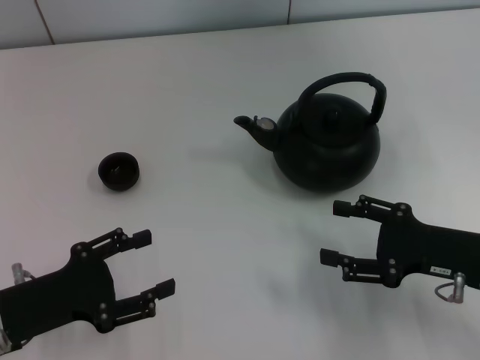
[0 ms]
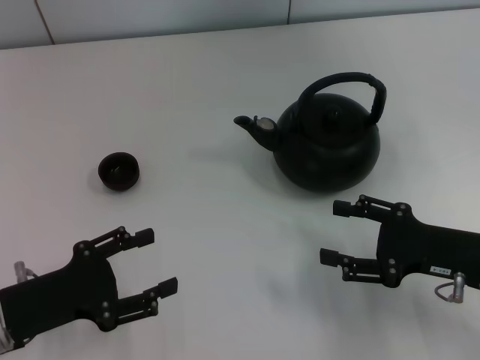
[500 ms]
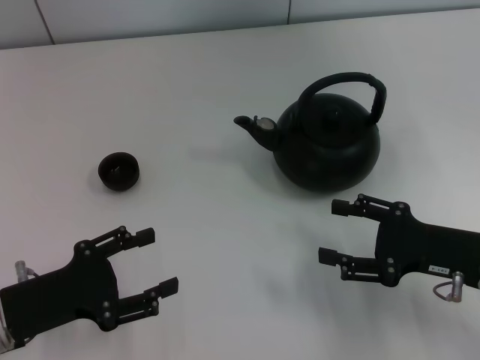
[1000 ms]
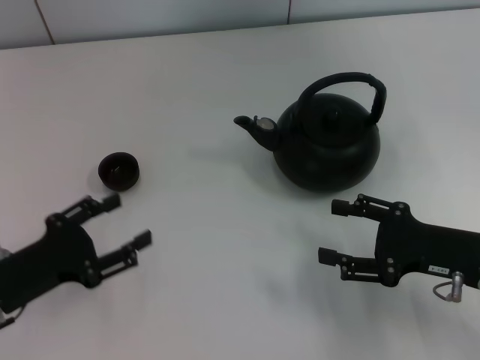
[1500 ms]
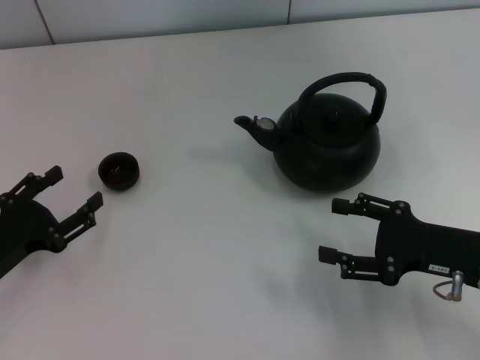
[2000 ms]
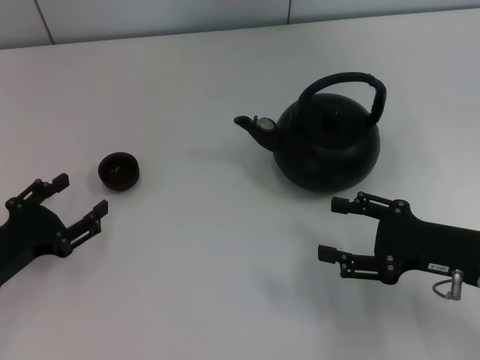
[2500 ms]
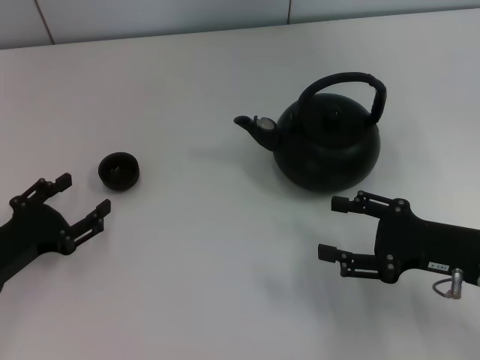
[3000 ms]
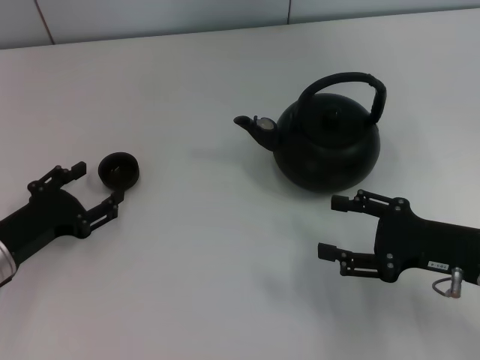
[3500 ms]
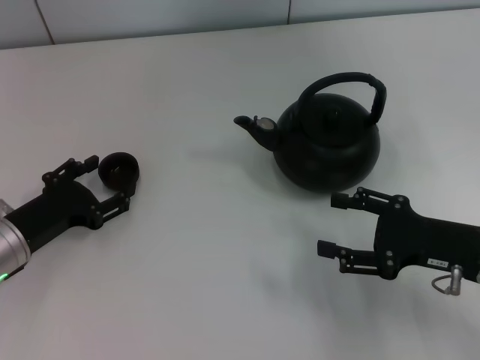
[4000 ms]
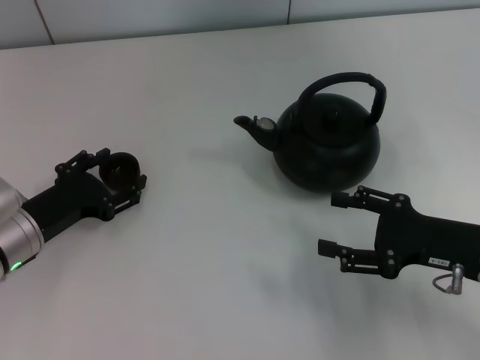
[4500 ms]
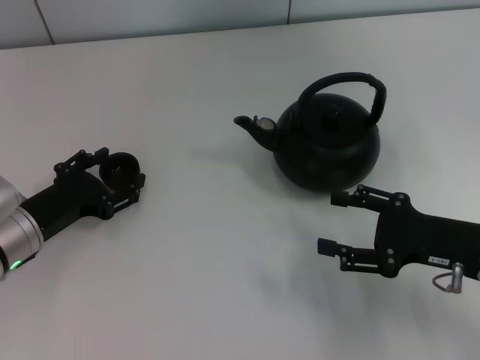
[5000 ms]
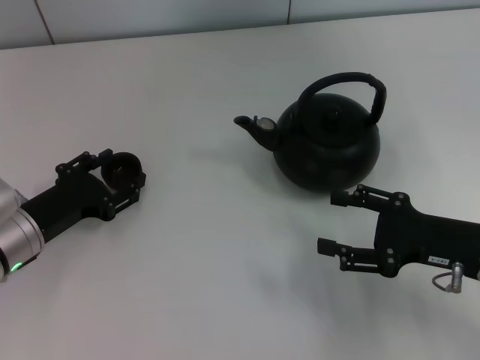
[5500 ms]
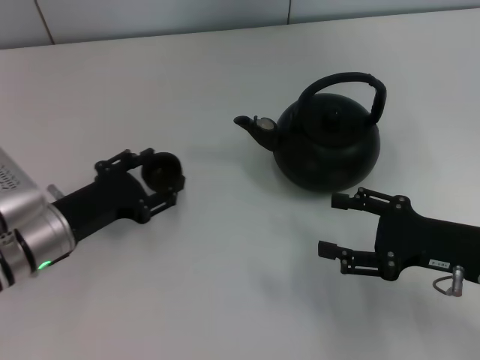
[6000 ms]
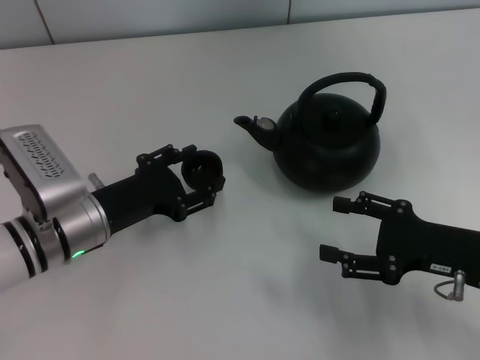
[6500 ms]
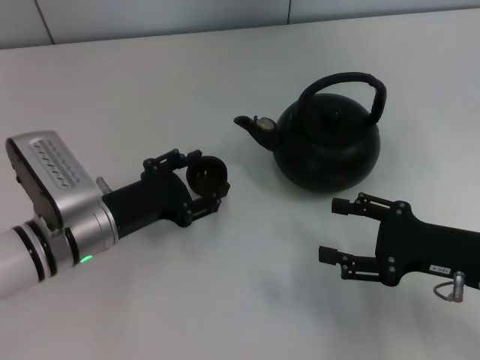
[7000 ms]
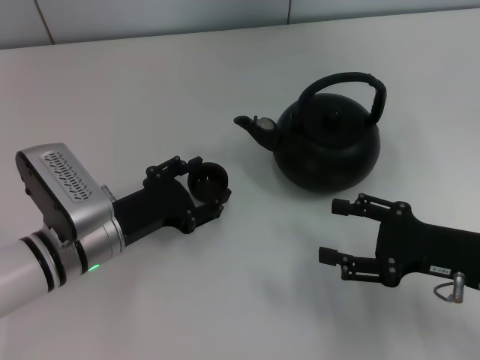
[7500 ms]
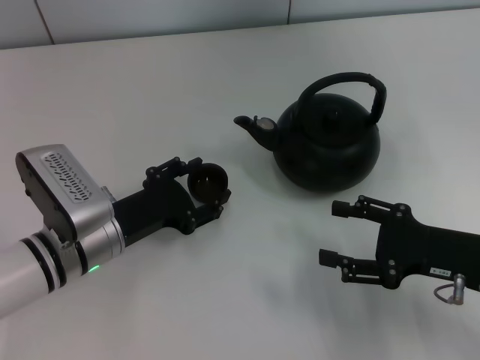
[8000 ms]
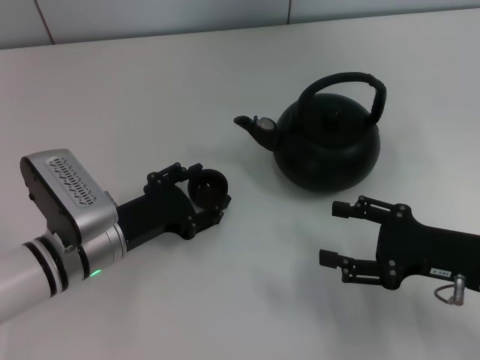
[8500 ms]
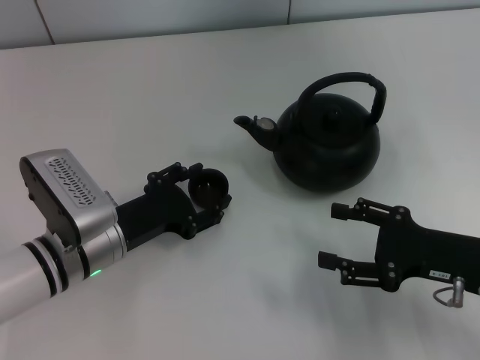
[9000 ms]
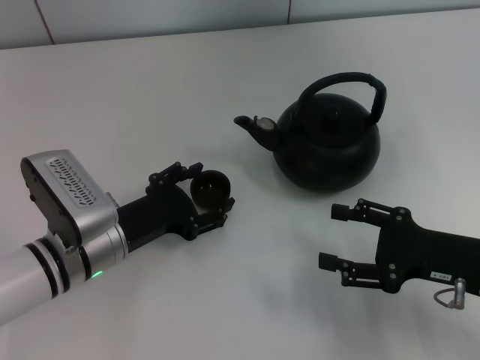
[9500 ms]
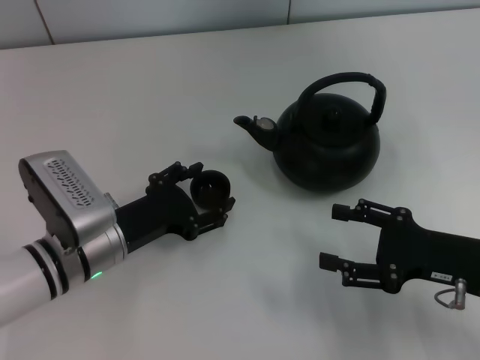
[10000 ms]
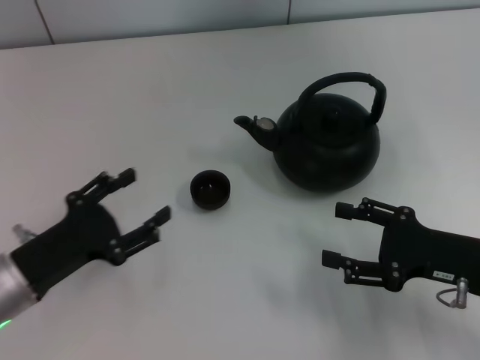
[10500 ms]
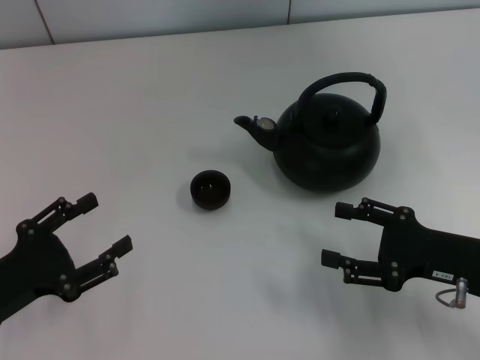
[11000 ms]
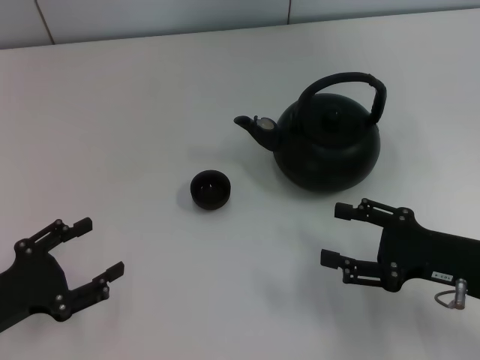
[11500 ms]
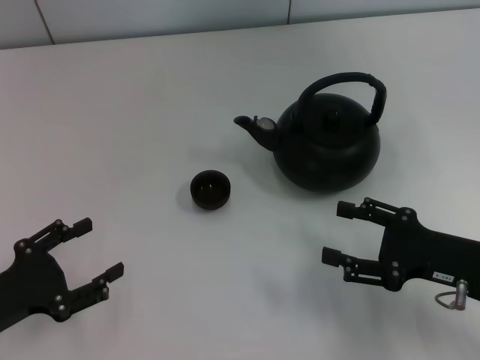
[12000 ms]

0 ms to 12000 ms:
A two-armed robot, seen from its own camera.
Task of the whole recording: Grasp the handle of the teapot with one hand and pour tea into the teacup.
Step, 0 ms to 5500 ms: Pick up the teacup with the left gripper.
Step, 6000 ms to 10000 ms: Place the teacup in the center of view with the left gripper.
2000 ms to 4000 ms: The left gripper ends up approximately 5 cm from where it was.
4000 ms to 6000 ms: There are only small adjustments of the grippers.
6000 ms to 8000 ms: There are only small adjustments of the grippers.
8000 ms to 10000 ms: Both grippers stay about where they are.
10000 ms to 12000 ms: The left gripper moves to the left and backward, approximately 15 cm.

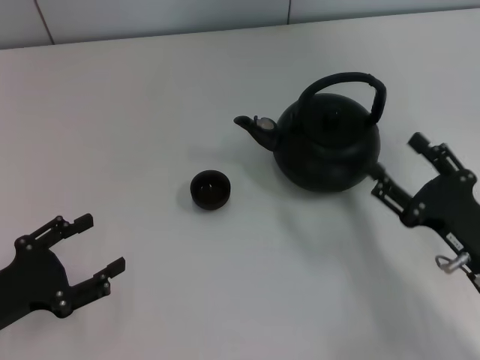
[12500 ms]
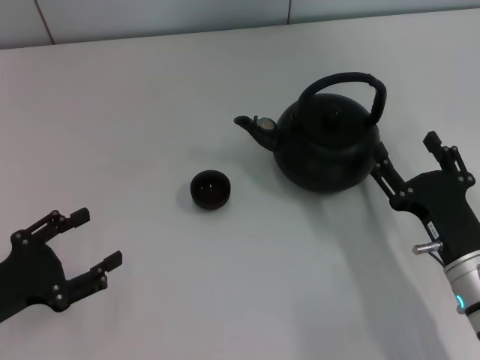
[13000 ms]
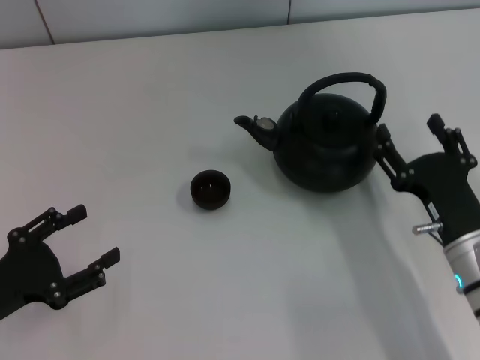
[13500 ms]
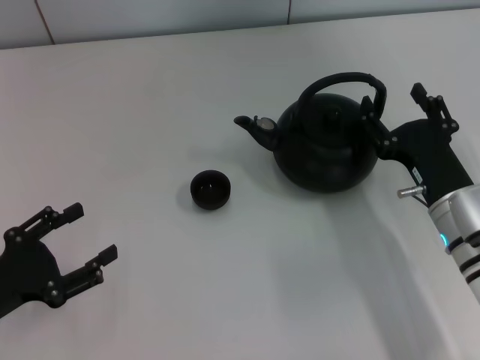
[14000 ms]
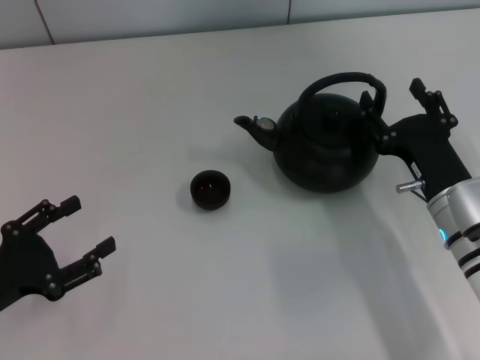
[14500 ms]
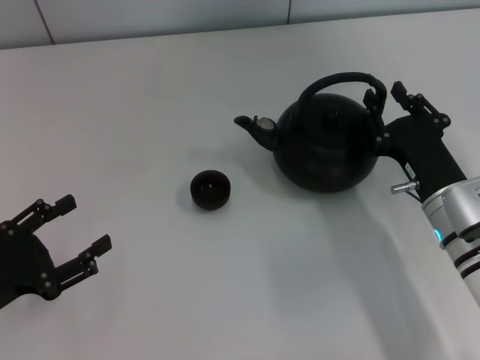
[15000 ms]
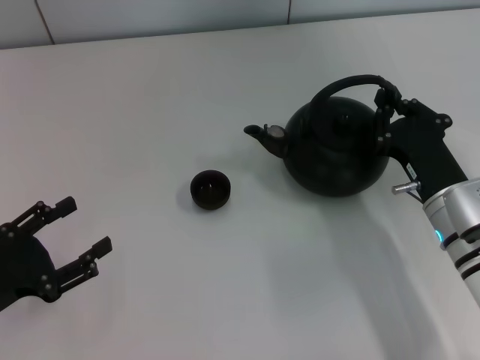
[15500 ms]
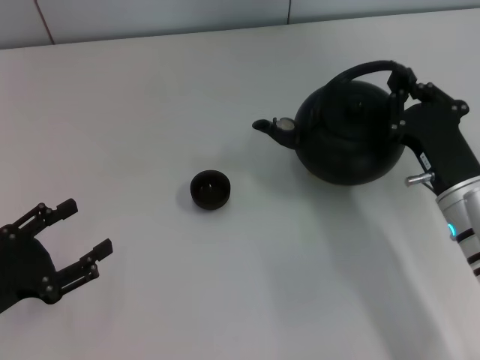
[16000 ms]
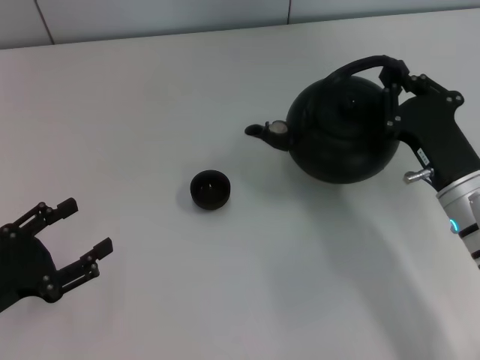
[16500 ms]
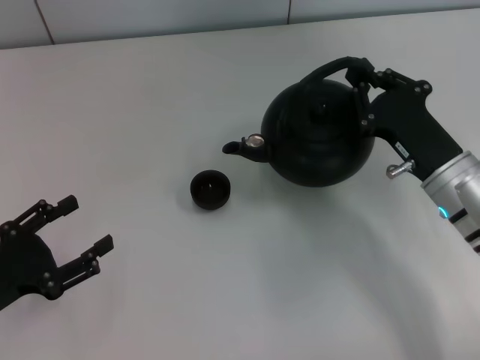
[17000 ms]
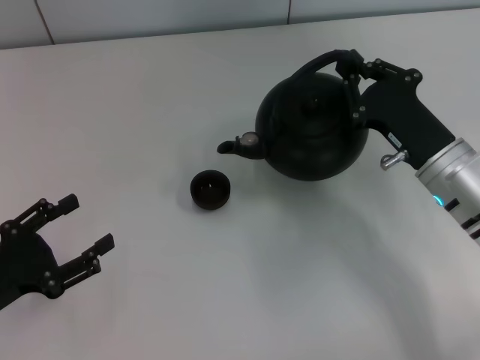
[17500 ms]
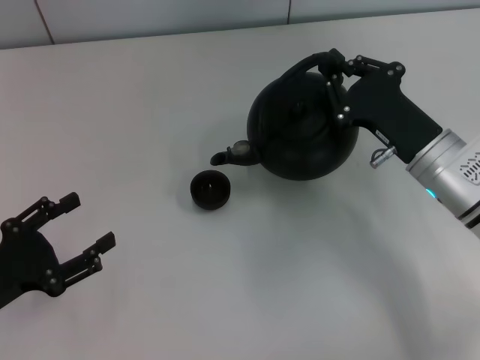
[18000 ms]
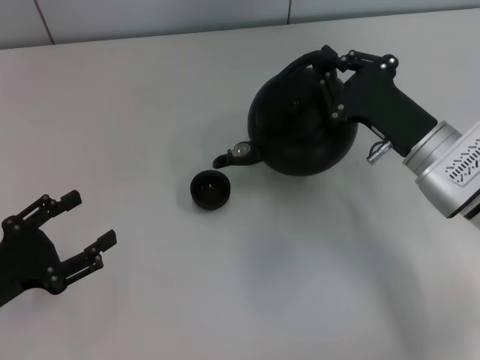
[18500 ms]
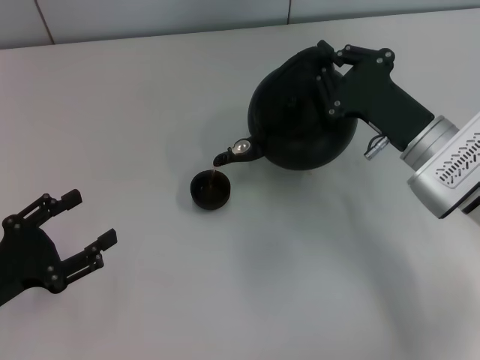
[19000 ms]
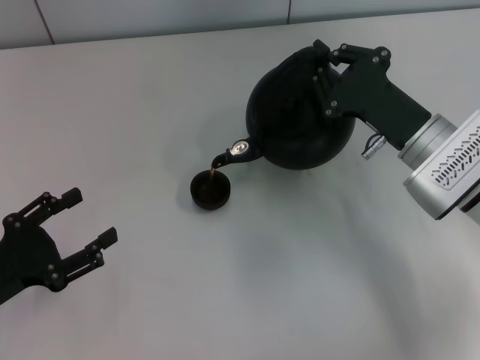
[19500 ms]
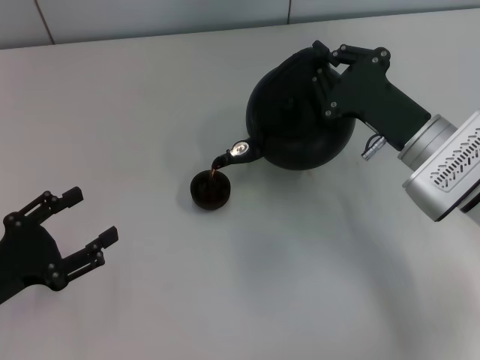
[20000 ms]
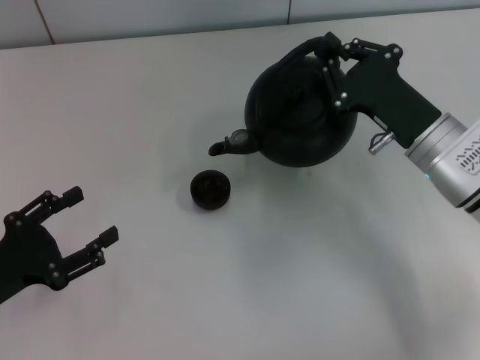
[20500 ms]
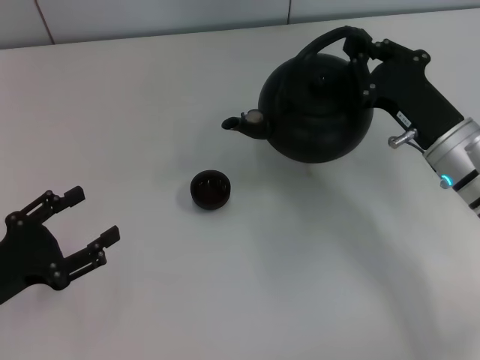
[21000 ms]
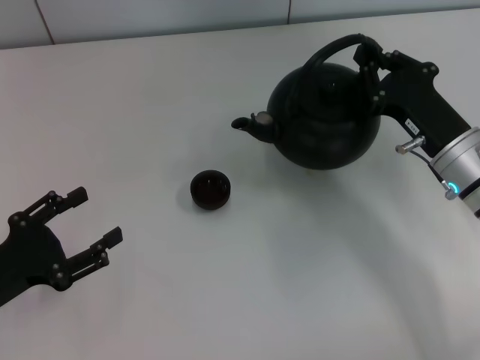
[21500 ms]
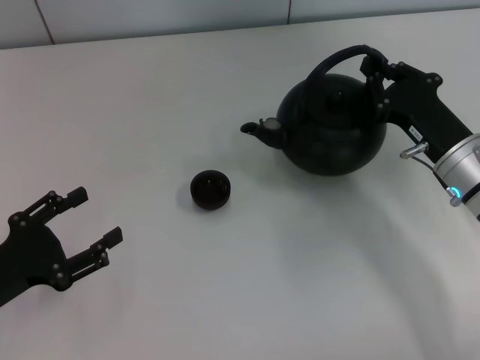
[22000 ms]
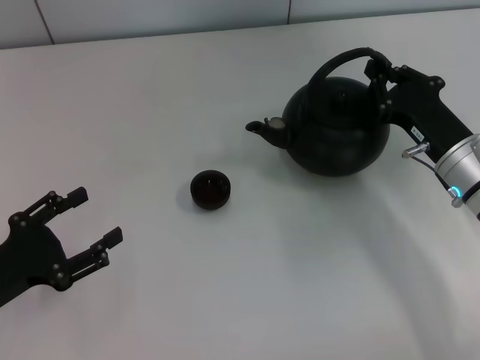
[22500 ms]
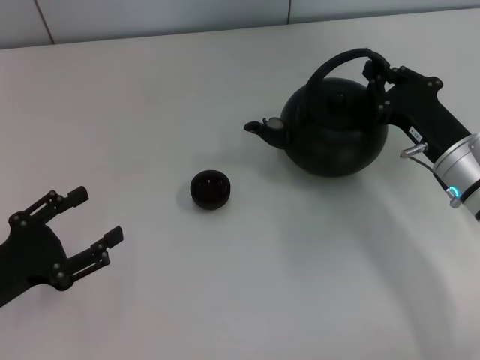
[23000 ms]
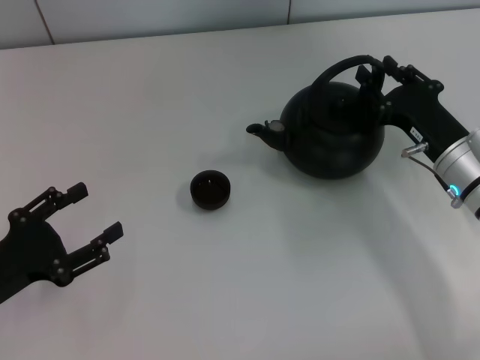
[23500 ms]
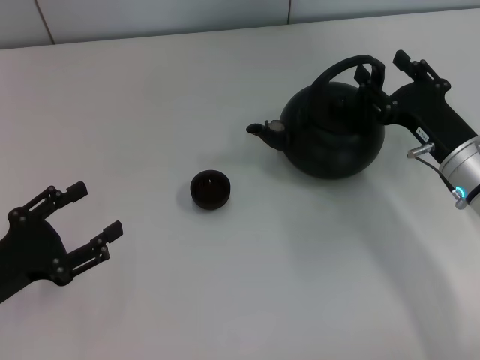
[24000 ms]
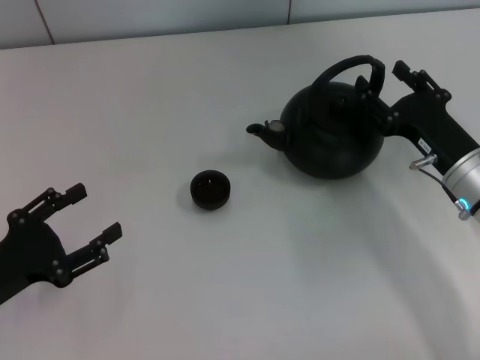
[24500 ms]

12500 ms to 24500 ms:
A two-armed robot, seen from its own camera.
Task of the whole recording: Grasp the handle of the teapot with one hand and pour tea into the teacup.
Step, 12500 ms to 16000 ms: Pick up the teapot with the right gripper.
12500 ms to 14500 ms: The right gripper goes some 5 cm forward.
14500 ms to 16500 ms: The right gripper closes up.
16500 ms to 18500 ms: The right gripper is displaced forward by approximately 5 cm.
18500 ms to 20500 ms: The grippers stay close to where they were, moving slightly.
22500 ms to 24500 ms: The right gripper opens.

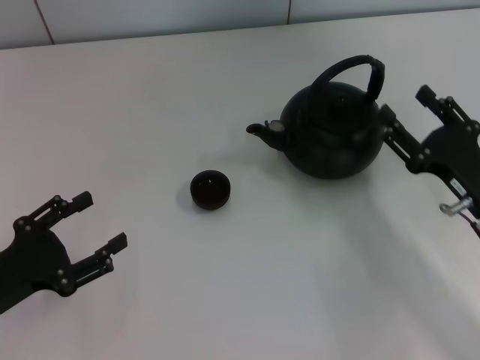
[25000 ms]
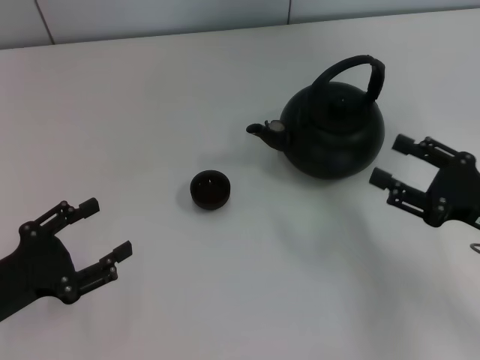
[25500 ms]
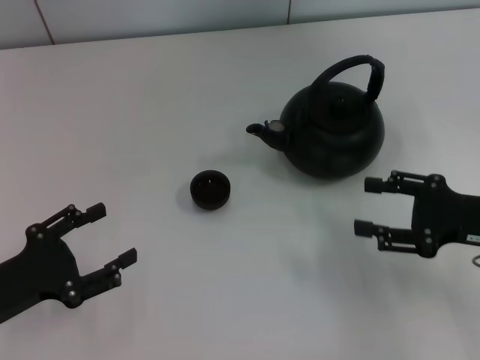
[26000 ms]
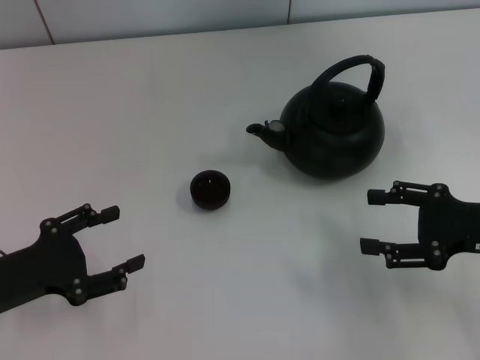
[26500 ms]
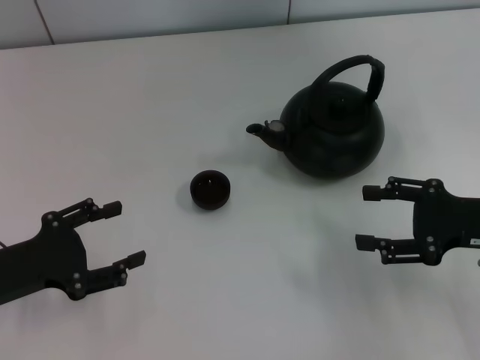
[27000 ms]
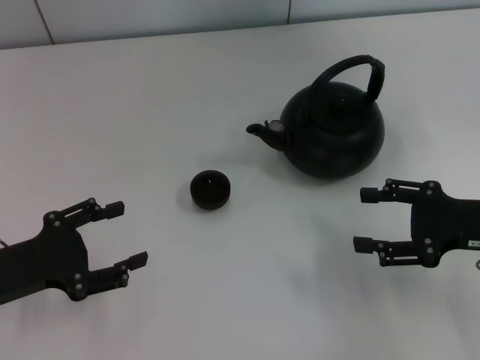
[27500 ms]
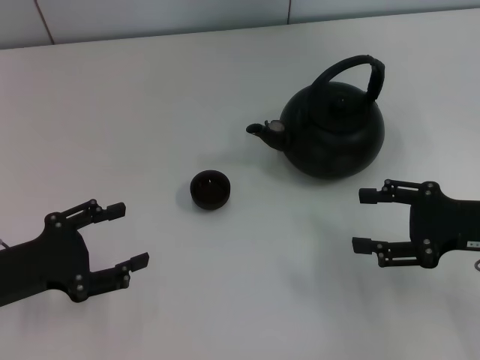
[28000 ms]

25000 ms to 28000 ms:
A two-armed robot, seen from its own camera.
Task of the whole recording: Grasp the handle of the teapot with one hand and pour tea into the teacup.
25000 ms to 26500 ms: The right gripper shifts by about 5 cm.
26500 ms to 28000 ms: Both grippers stay about where they are.
